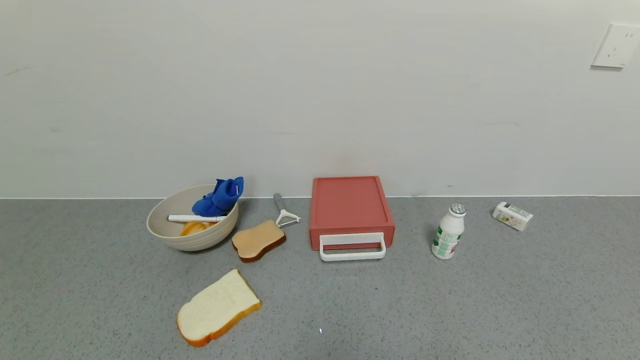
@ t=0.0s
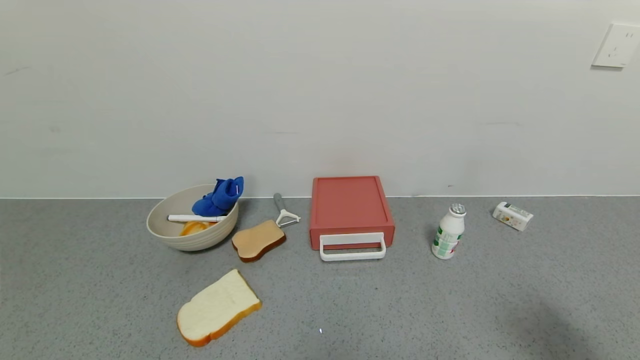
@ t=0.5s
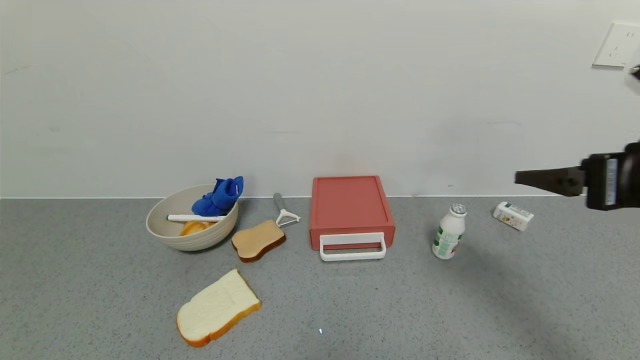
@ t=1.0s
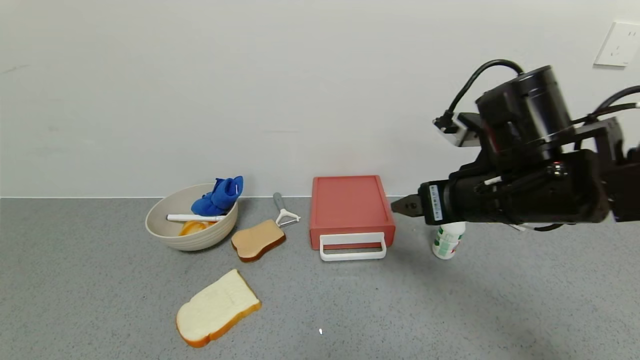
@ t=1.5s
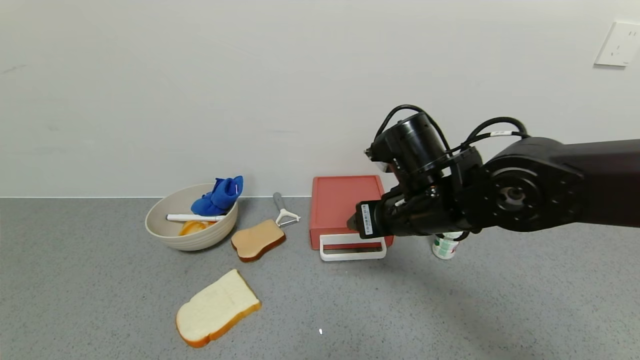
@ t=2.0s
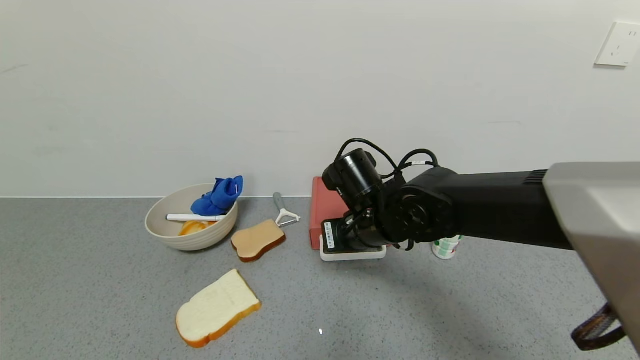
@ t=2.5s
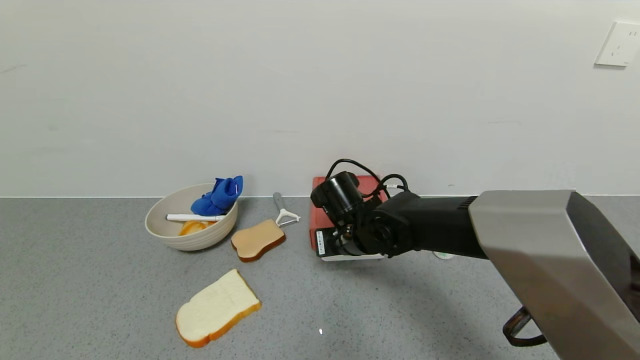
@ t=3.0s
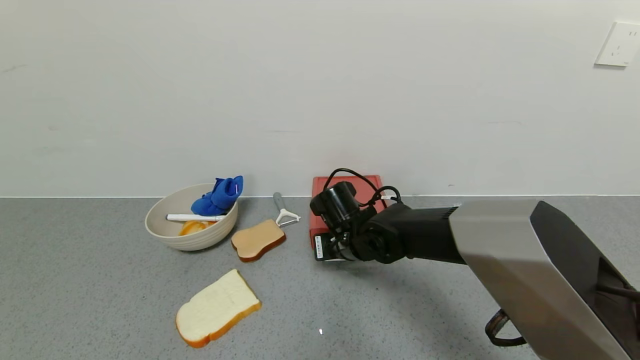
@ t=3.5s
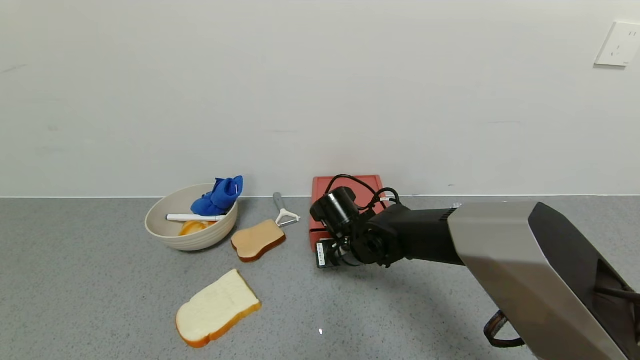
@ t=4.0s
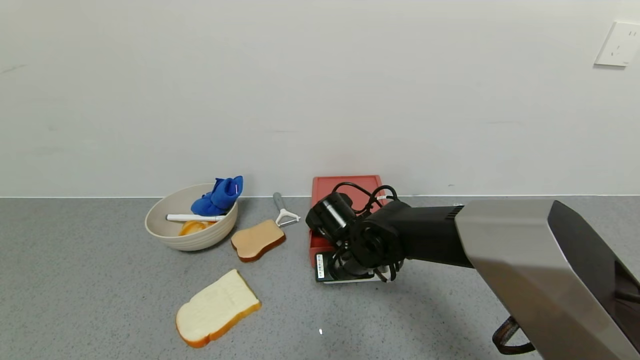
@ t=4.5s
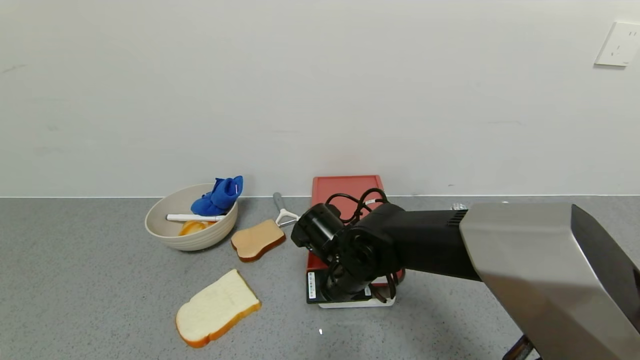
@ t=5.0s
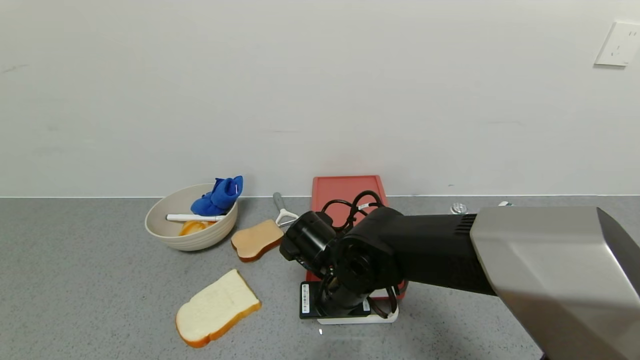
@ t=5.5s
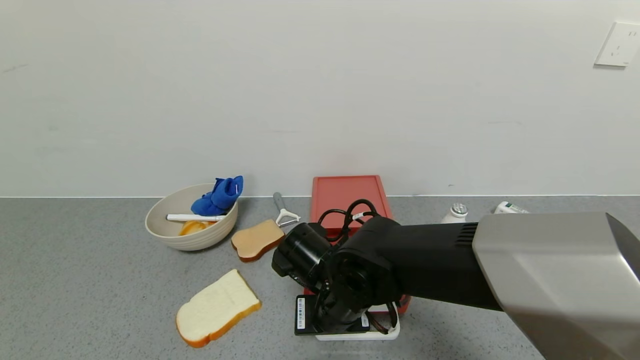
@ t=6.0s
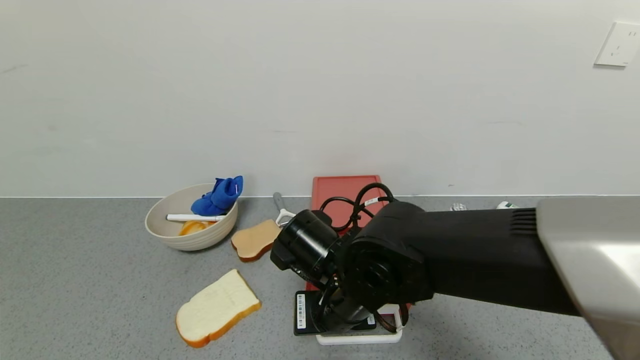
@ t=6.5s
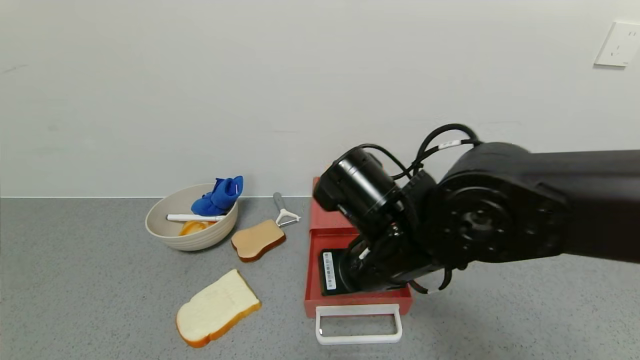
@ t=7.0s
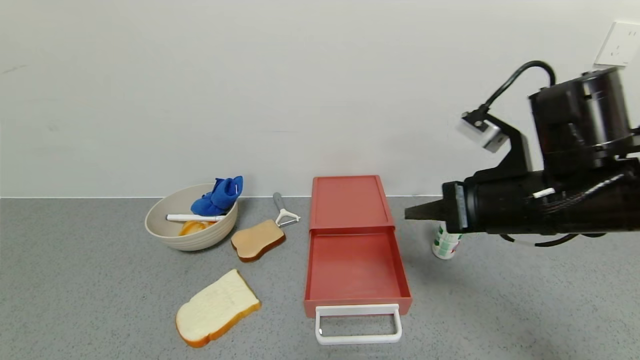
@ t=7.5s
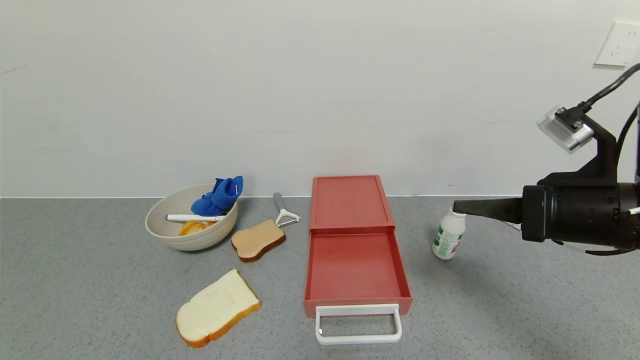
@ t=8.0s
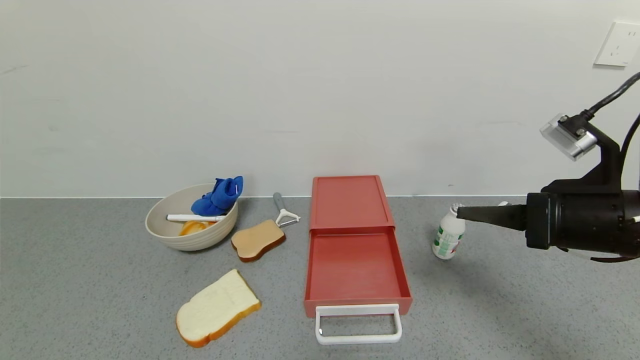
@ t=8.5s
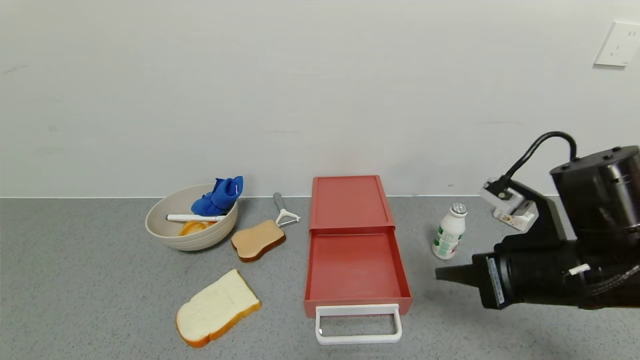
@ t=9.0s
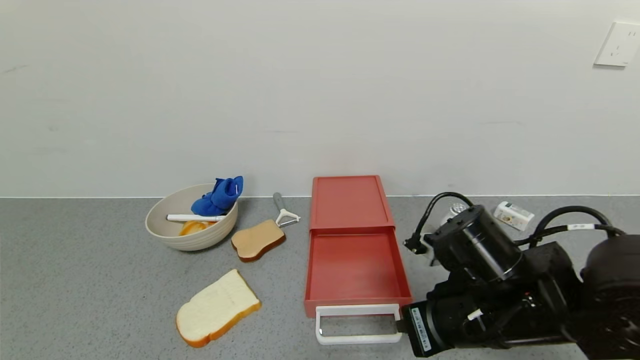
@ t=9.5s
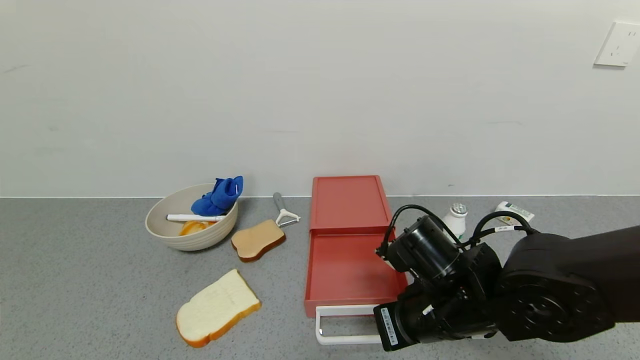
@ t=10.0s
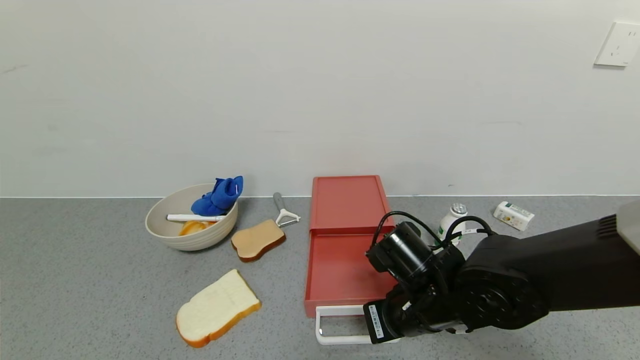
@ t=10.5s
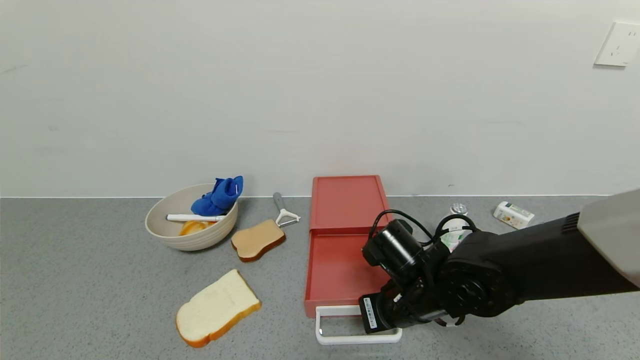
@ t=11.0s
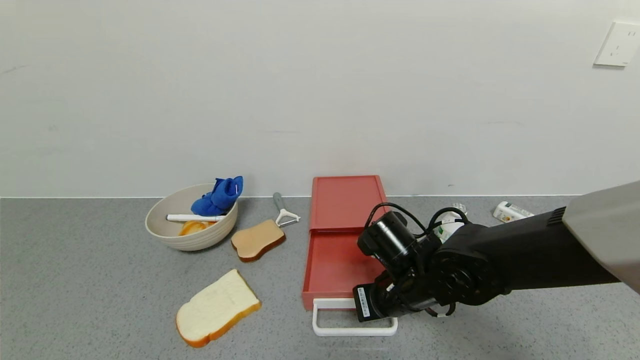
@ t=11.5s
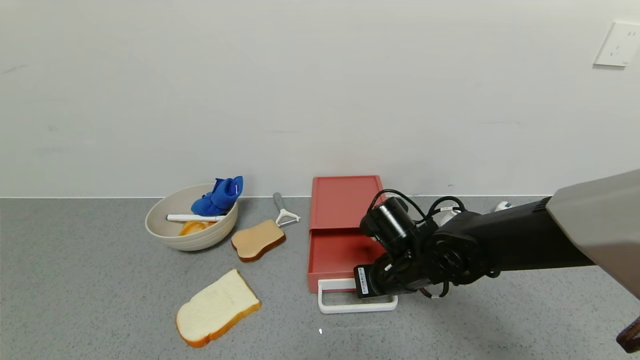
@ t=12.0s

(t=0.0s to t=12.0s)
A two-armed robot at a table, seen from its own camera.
Task of the whole recording: use the gripper to open the drawer and close the red drawer.
Step, t=0.0s - t=7.0s: Open the red drawer with the right gripper.
t=0.0s - t=2.0s: The right gripper heads forward and to the left, covering about 40 cm.
t=2.0s - t=4.0s: The right gripper goes roughly 15 cm downward, to the left and forward, and closes.
t=4.0s - t=6.0s: The right gripper moves backward, about 10 cm.
t=6.0s - t=8.0s: The right gripper heads to the right and upward, covering some 30 cm.
t=8.0s - t=10.0s: The right gripper goes approximately 20 cm to the left and downward.
t=10.0s - t=12.0s: The right gripper moves forward, about 10 cm.

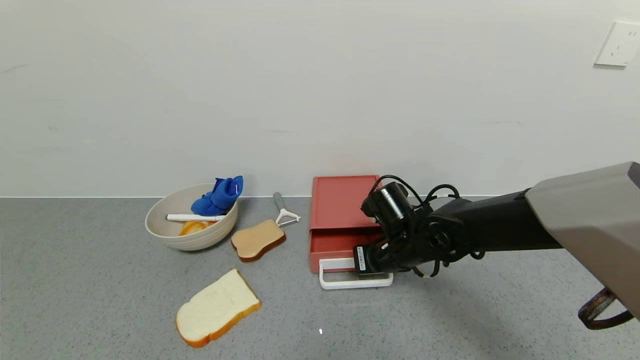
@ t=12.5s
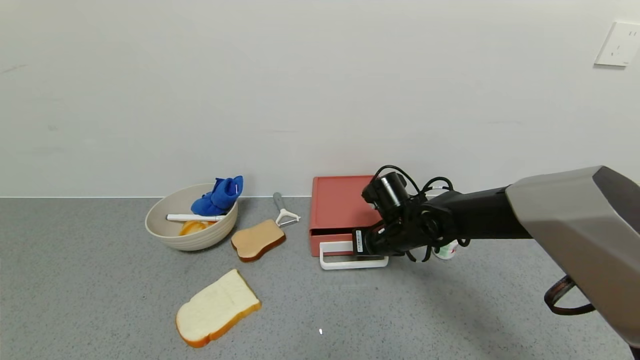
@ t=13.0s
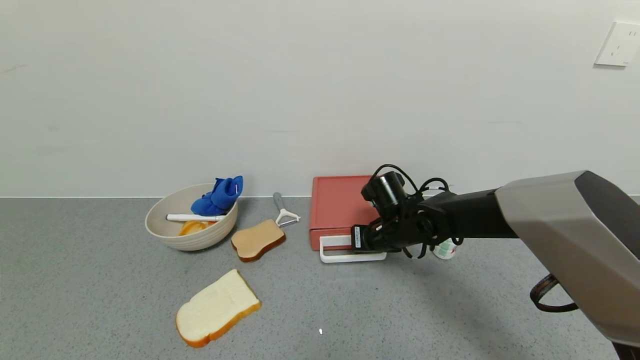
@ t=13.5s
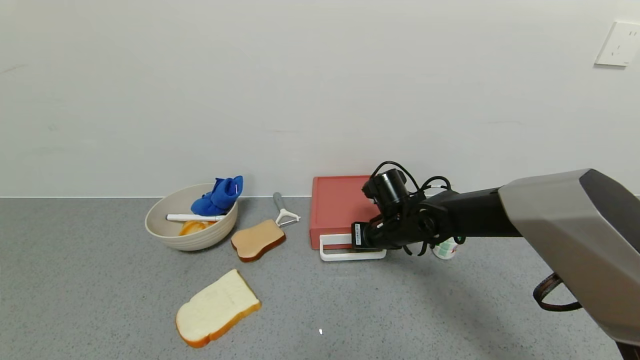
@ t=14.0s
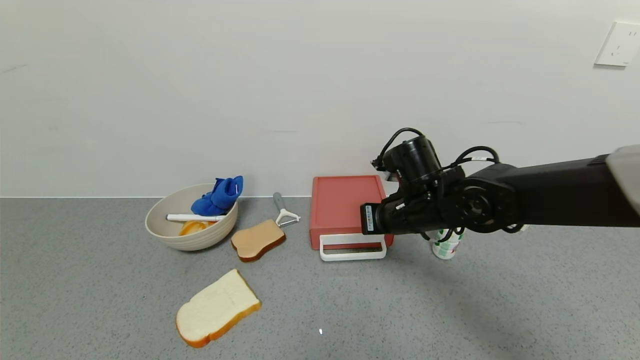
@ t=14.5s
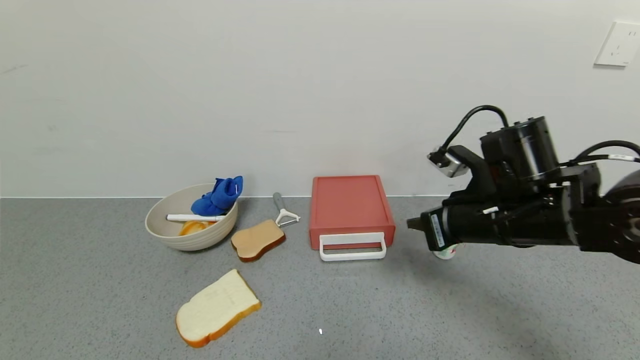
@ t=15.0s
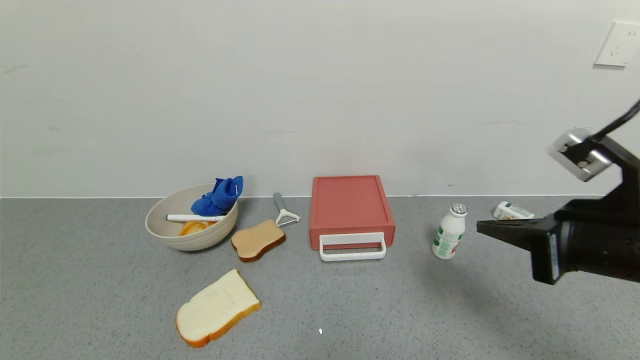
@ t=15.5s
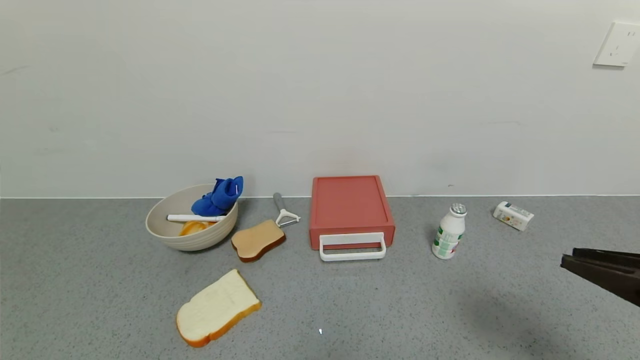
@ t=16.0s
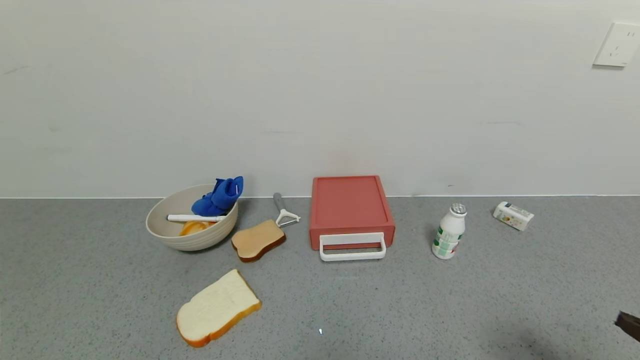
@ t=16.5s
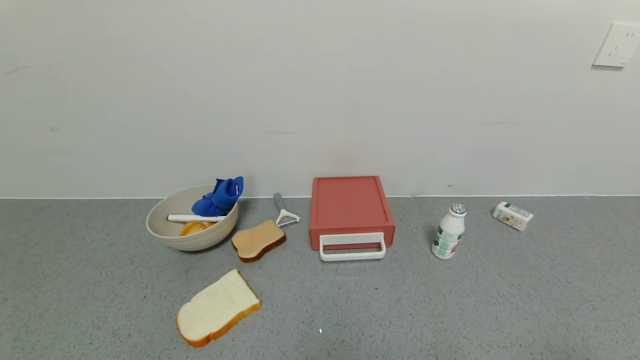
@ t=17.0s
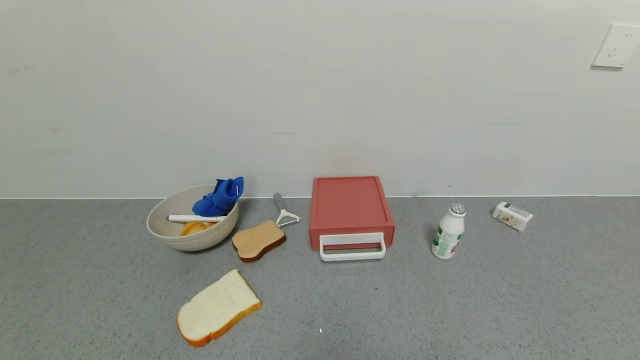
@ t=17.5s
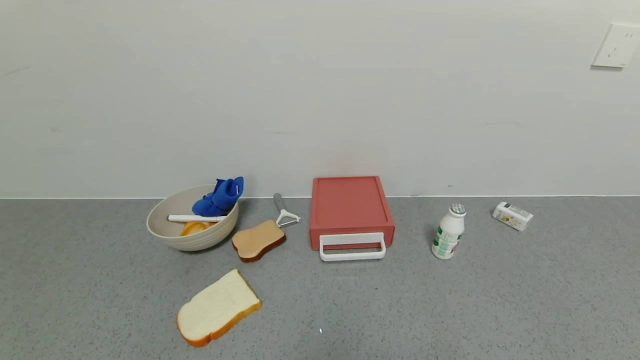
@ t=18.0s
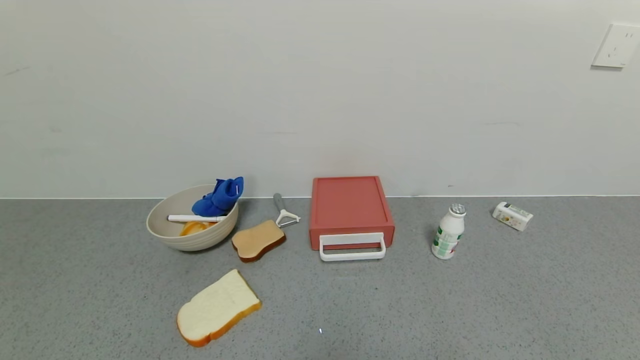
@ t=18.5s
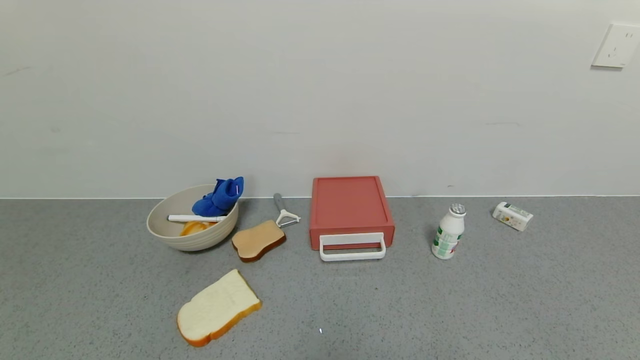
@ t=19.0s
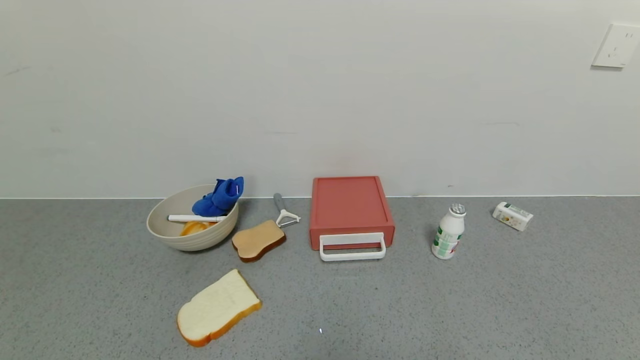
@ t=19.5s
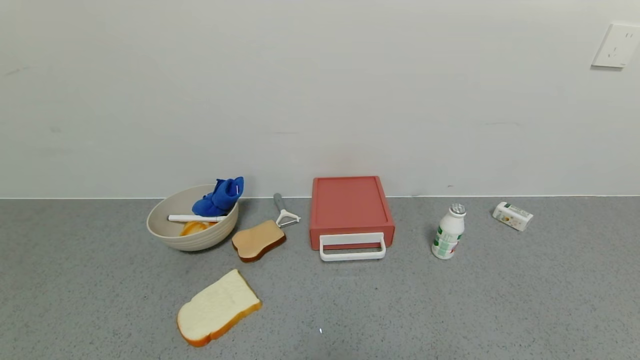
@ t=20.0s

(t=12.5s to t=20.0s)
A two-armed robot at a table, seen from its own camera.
Task of the whole recording: use the gripper to open the drawer and close the red drawer.
Step, t=12.5s - t=14.5s: Close the red drawer with the right gripper.
t=12.5s - t=14.5s: The right gripper is displaced upward by some 10 cm.
t=14.5s - t=16.5s: The right gripper goes roughly 35 cm backward and to the right, and opens up.
t=16.5s - t=18.0s: The right gripper is displaced backward and downward by approximately 15 cm.
